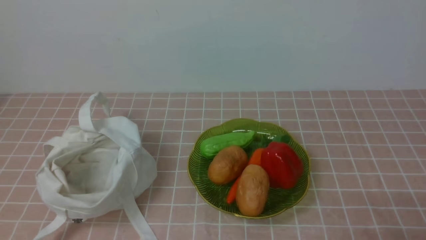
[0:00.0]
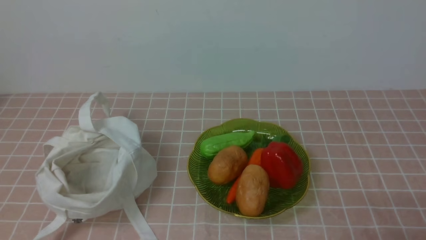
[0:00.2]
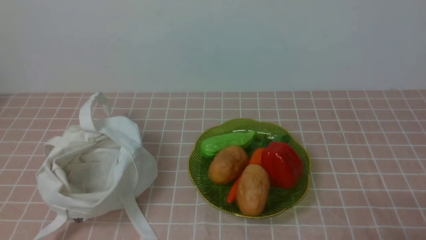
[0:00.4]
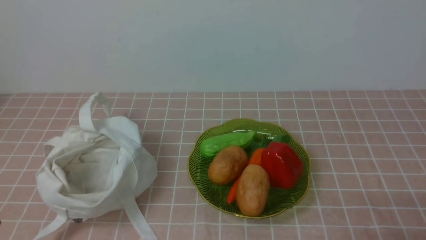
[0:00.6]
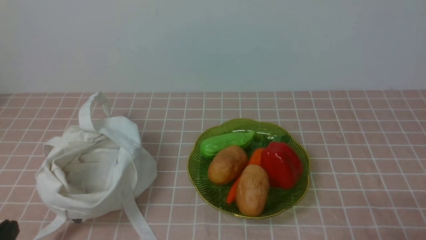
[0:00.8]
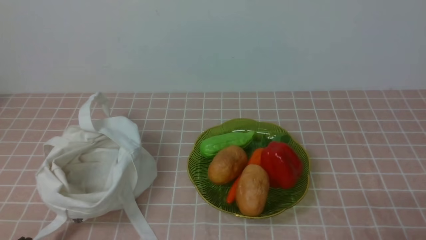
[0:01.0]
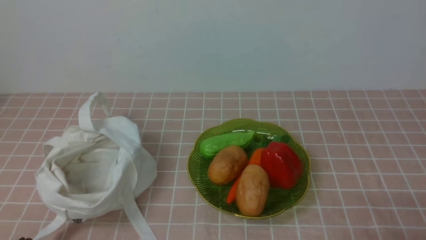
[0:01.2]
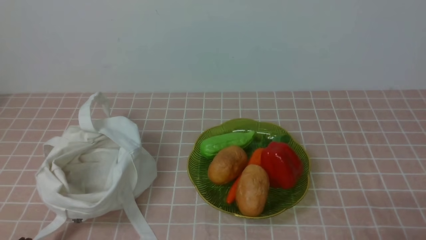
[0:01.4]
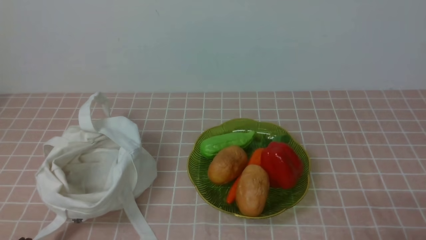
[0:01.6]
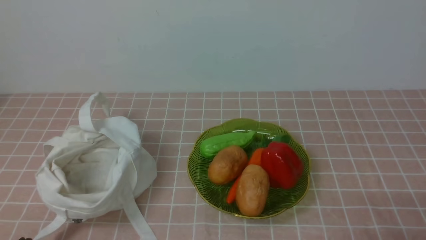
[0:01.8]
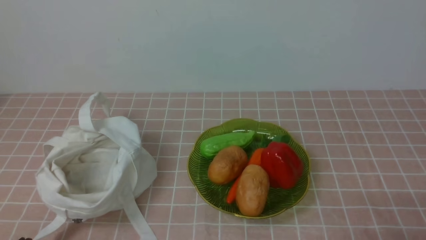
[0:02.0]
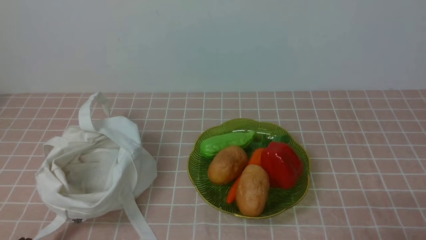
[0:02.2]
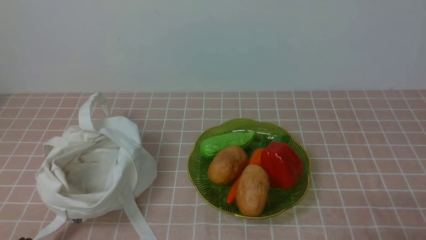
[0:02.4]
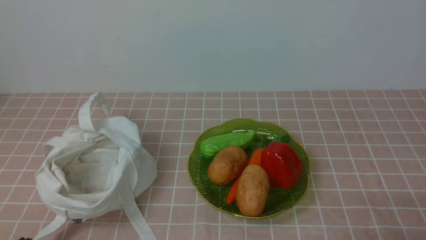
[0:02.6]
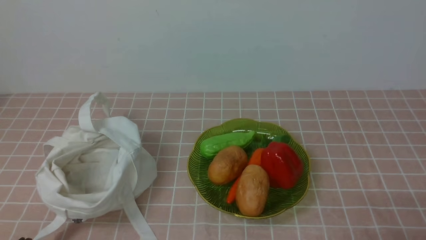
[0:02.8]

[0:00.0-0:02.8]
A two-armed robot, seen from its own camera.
Task of the whole recording: take vegetables from bag on pink coffee tablecloth place on plate.
0:01.4 to 0:02.8: Both grippers stay about where they are.
